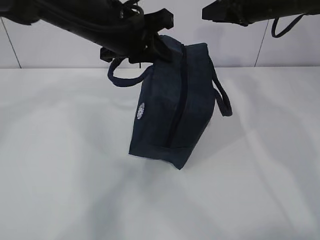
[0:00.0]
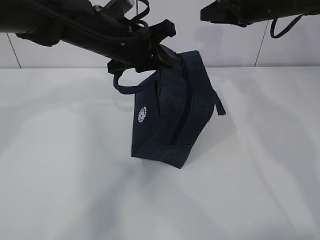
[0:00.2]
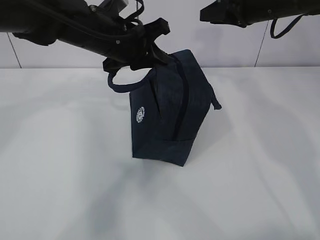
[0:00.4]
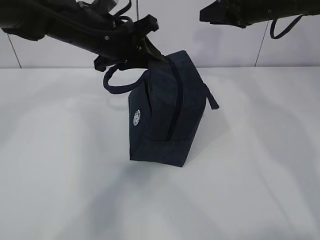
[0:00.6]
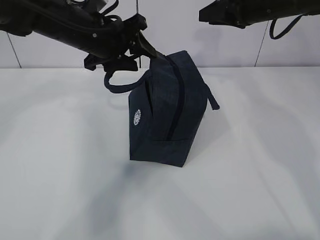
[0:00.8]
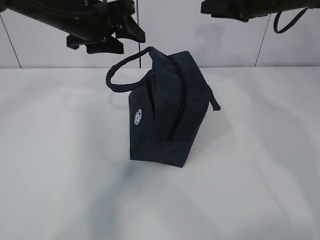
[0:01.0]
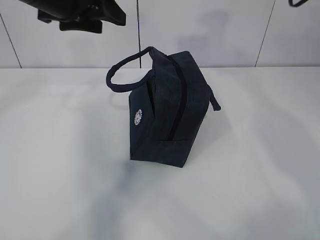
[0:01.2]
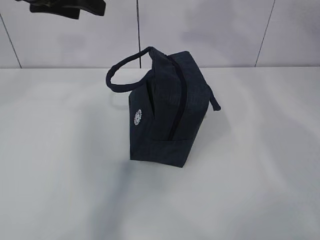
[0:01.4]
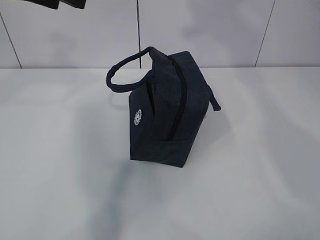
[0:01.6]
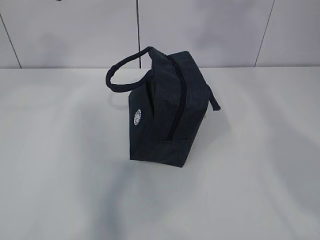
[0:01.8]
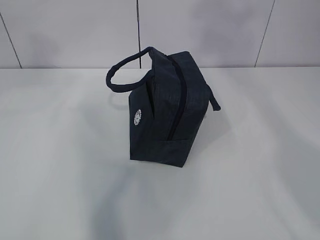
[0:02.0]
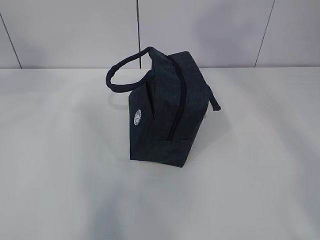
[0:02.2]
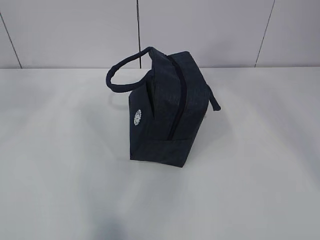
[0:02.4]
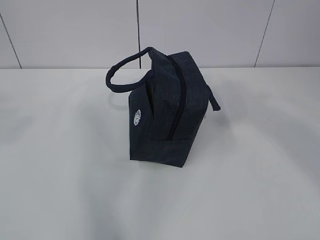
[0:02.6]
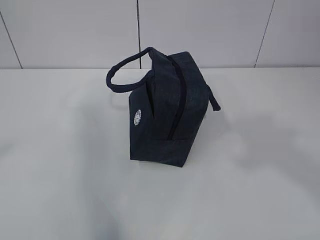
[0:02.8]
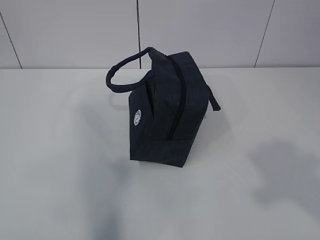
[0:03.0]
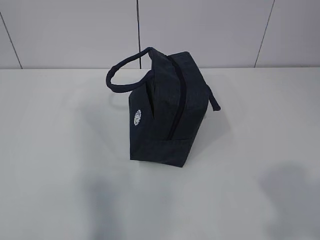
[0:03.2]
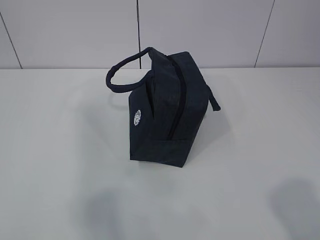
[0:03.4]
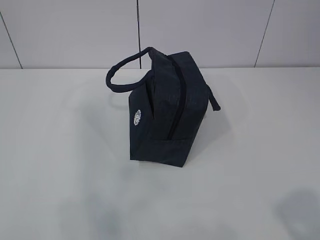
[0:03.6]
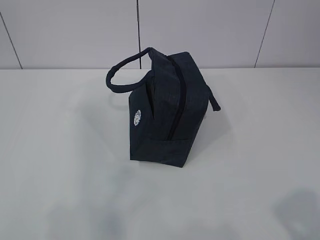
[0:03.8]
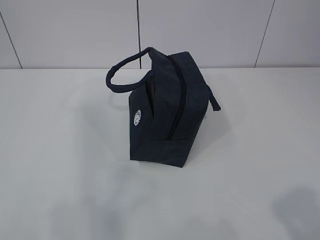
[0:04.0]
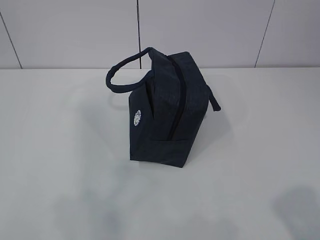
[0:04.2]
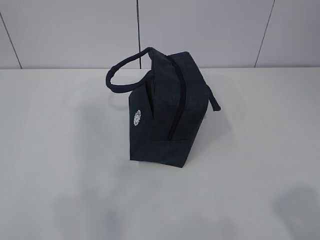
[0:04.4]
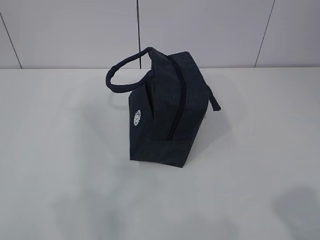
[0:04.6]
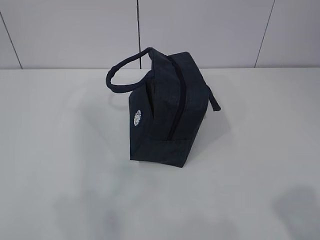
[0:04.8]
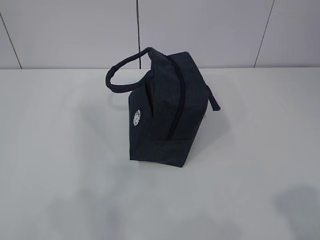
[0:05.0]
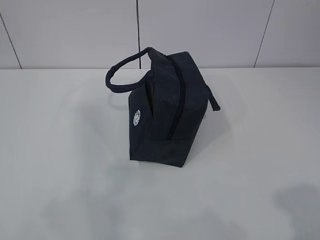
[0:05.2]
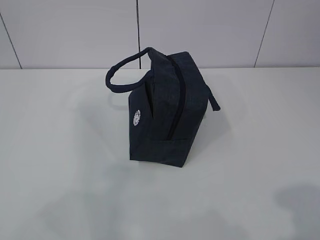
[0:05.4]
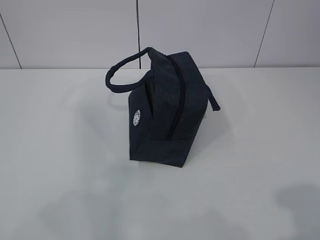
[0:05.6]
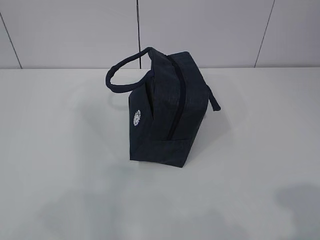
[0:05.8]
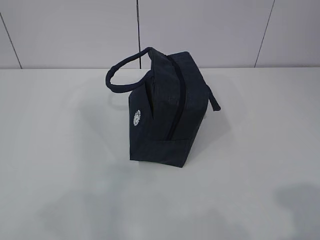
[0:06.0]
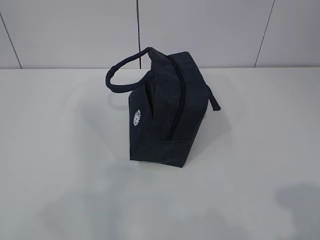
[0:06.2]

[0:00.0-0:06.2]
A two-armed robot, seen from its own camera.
0:00.0 to 0:01.6: The left gripper travels to the left and upward by some 15 cm, and opens; the right gripper heads upward and backward, covering approximately 25 cm.
0:01.6 to 0:03.2: The left gripper travels backward and to the left by about 35 cm. The right gripper travels backward and downward by some 40 cm.
